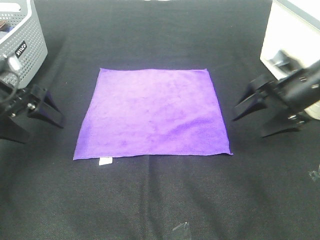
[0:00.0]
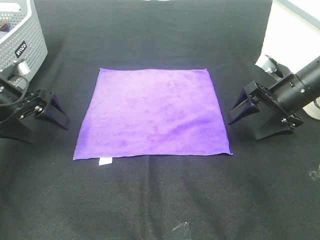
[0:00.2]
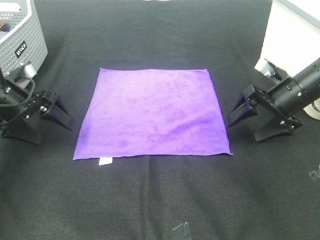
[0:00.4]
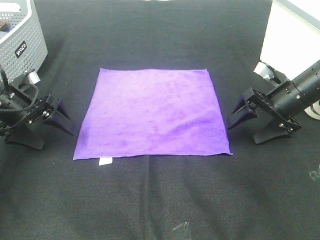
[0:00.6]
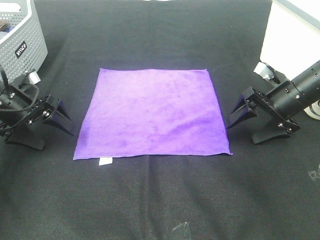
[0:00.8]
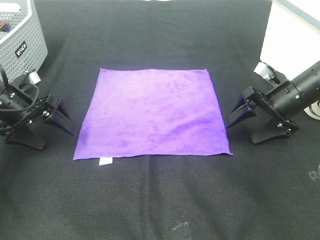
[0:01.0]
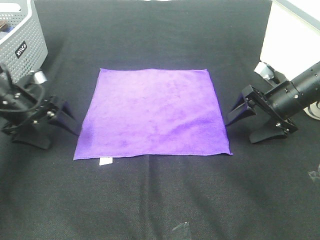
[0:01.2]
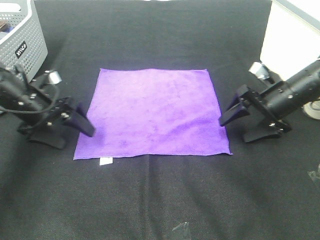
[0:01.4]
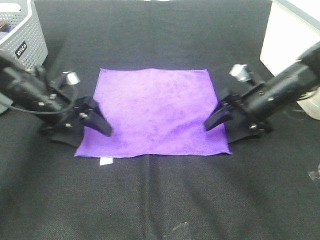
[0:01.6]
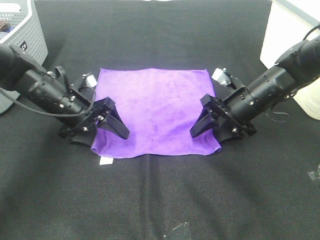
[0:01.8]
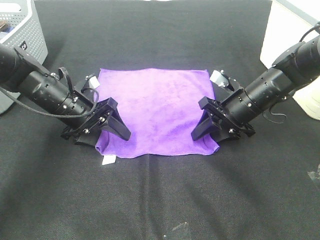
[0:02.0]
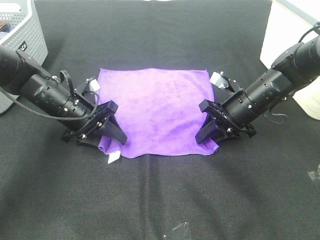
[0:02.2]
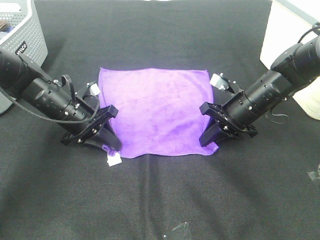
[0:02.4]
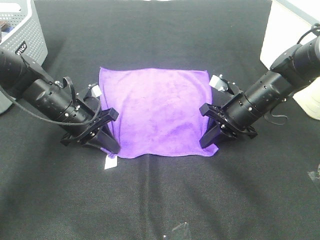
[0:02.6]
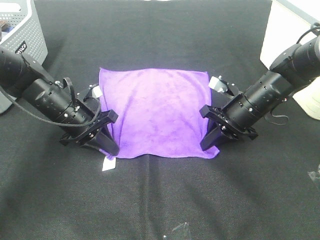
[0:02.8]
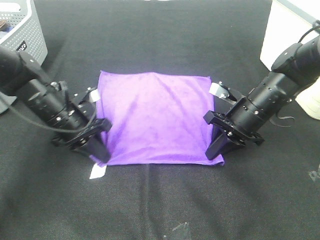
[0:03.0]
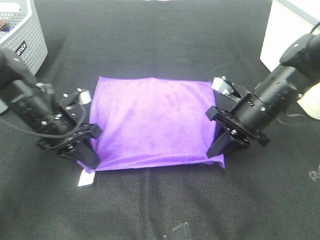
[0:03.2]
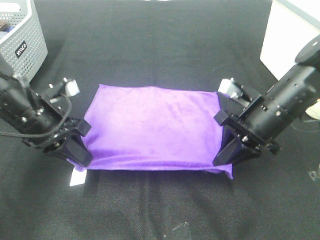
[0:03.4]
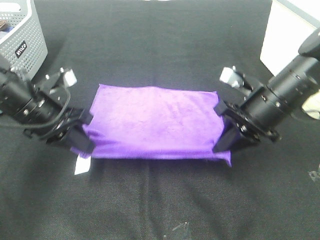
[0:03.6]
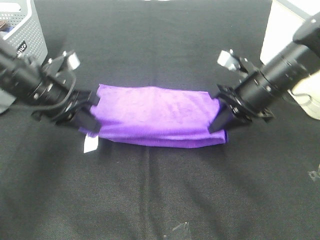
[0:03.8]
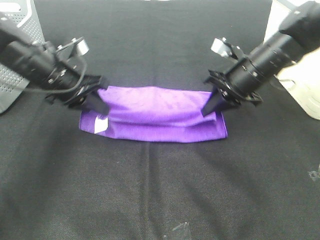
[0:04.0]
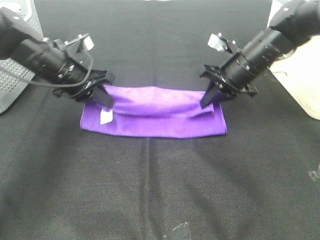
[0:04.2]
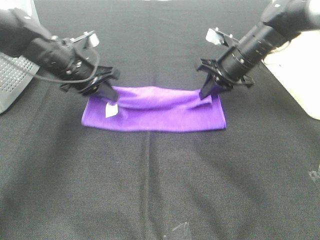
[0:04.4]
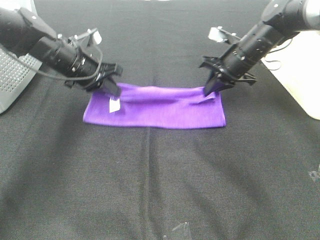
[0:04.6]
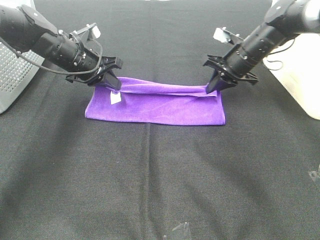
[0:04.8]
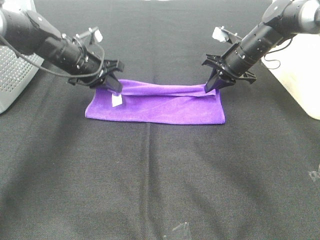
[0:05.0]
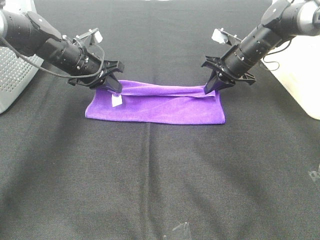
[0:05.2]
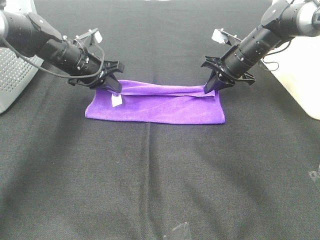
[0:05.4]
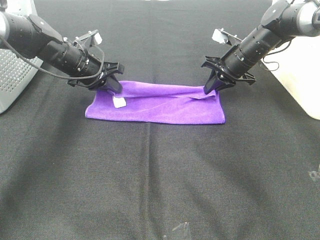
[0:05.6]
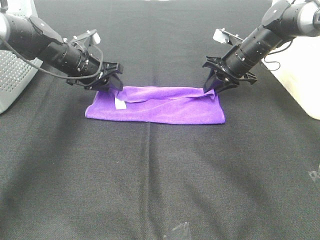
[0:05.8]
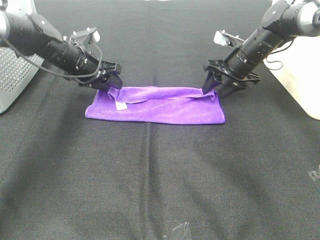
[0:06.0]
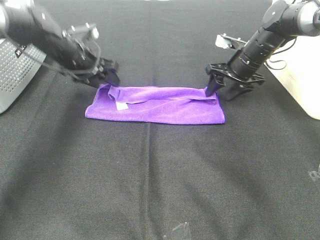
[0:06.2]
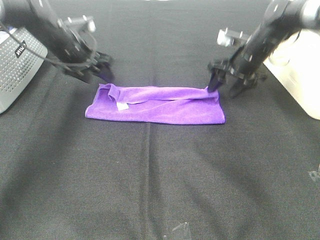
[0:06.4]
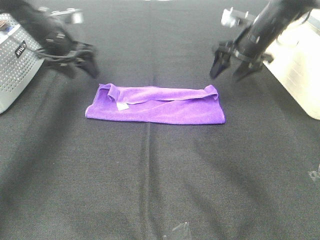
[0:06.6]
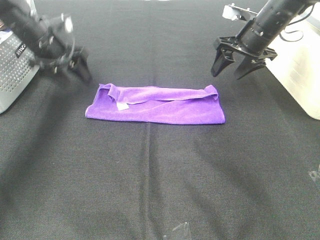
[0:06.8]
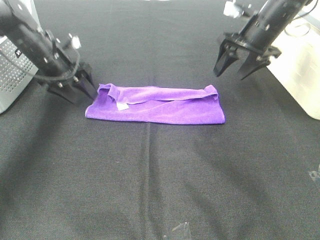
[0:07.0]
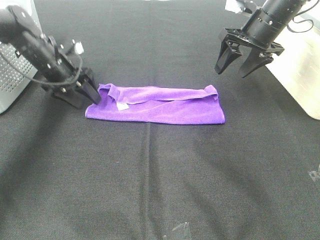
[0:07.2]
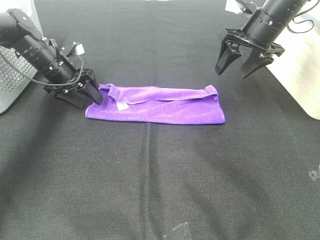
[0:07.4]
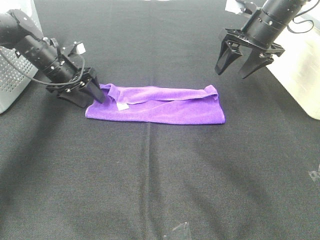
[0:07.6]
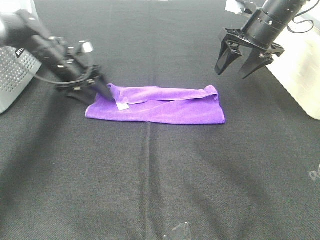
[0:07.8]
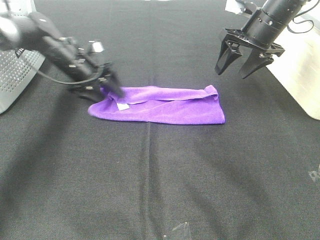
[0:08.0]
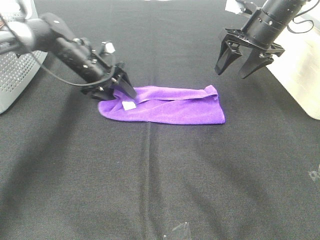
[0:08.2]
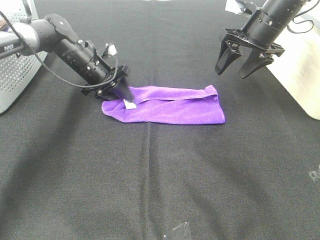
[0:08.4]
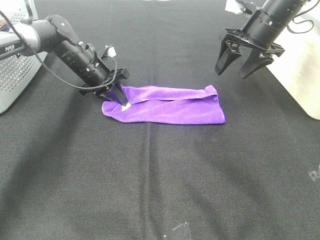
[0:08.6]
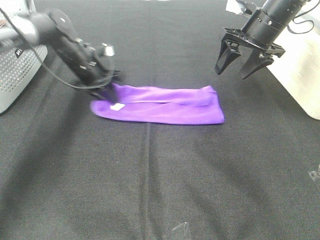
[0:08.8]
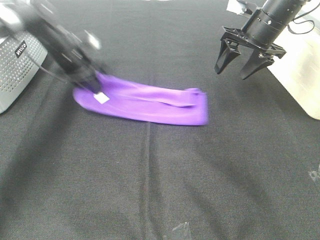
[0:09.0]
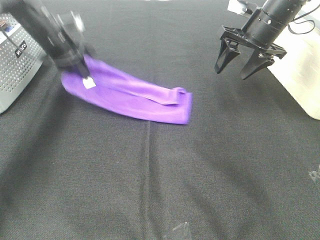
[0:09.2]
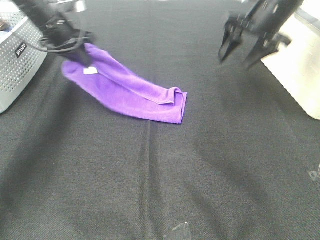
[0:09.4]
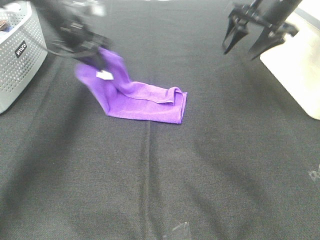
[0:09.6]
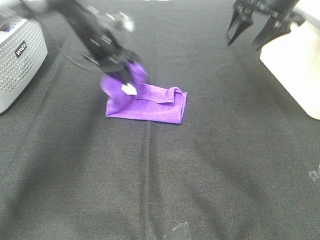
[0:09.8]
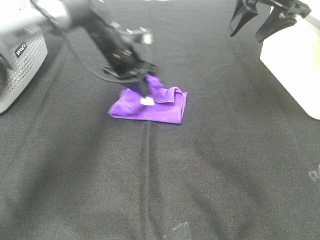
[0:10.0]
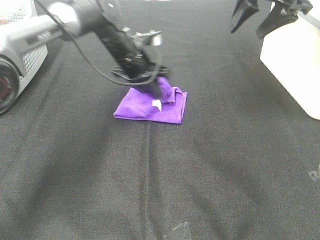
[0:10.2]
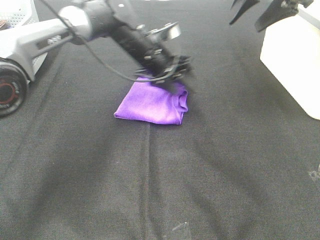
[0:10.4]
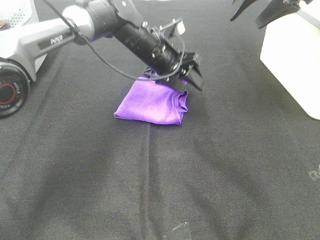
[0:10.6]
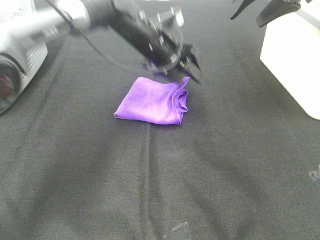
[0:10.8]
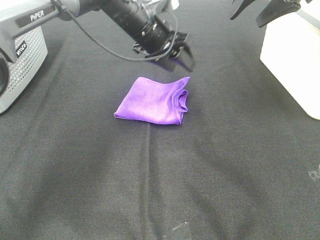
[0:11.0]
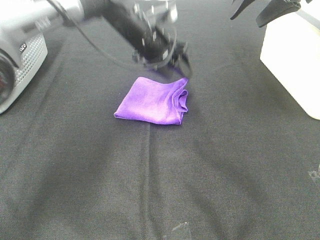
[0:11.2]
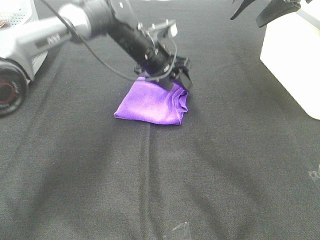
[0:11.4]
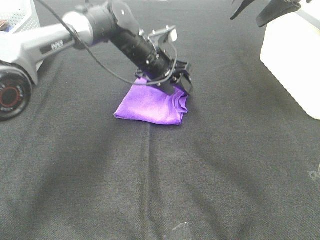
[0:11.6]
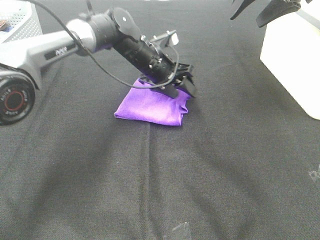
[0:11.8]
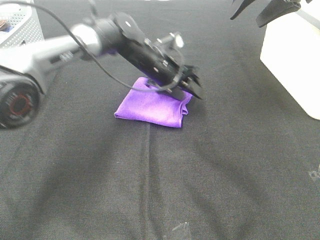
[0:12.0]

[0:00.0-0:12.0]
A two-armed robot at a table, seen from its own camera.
Task of the whole recording: Fold towels.
Step, 0:00.0 to 0:02.6: Left hand: grab the bottom left corner of purple towel.
Step, 0:00.0 to 0:02.6: Right hand: grab the bottom right corner of purple towel.
Step, 0:02.8 to 0:05.4: Left hand: fold the purple towel up.
Step, 0:02.8 to 0:05.4: Right hand: fold the purple towel up.
Step, 0:05.6 to 0:10.2: Left hand: fold the purple towel from left to right.
0:00.0 to 0:01.6: The right gripper shifts some 10 cm downward and to the left; the left gripper moves to the right and downward, roughly 10 cm.
0:01.6 to 0:03.0: The right gripper closes up. Meanwhile the left gripper closes.
0:03.0 to 0:04.4: The right gripper moves forward, about 10 cm. The left gripper is displaced forward and upward by about 10 cm.
0:04.4 to 0:06.0: The left gripper moves approximately 5 cm, and opens. Meanwhile the right gripper moves some 5 cm, and opens up.
0:06.0 to 0:07.6: The right gripper goes roughly 10 cm upward, while the left gripper reaches roughly 5 cm upward, then returns.
0:07.6 to 0:09.0: The left gripper closes.
0:09.0 to 0:10.4: The left gripper is displaced to the right by about 20 cm, and opens up. Meanwhile the right gripper is displaced upward by about 10 cm.
0:10.4 to 0:12.0: The grippers stay close to where they were, moving slightly.

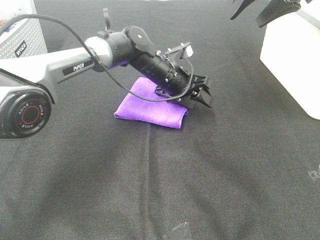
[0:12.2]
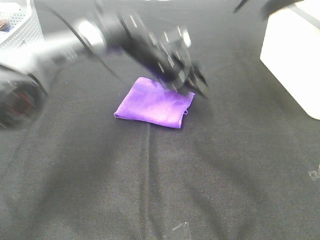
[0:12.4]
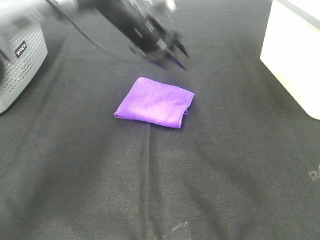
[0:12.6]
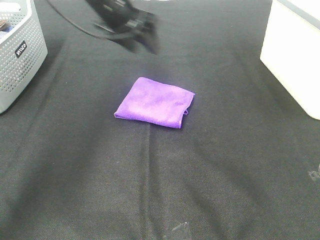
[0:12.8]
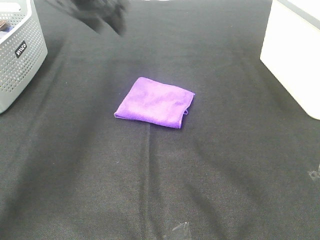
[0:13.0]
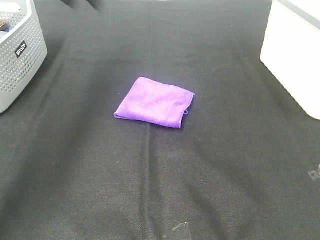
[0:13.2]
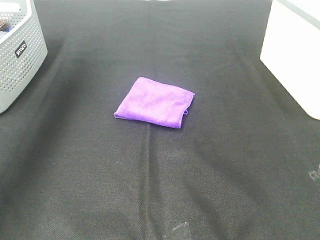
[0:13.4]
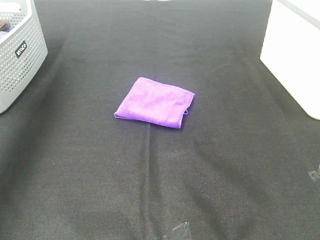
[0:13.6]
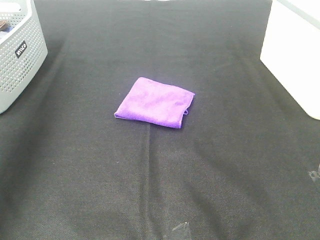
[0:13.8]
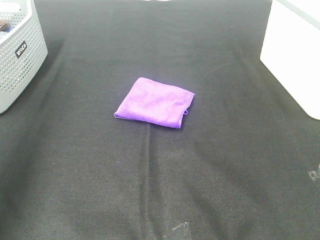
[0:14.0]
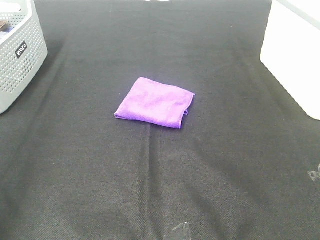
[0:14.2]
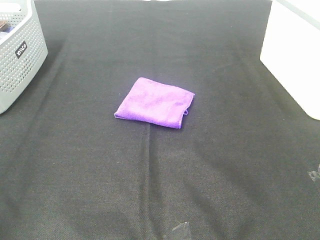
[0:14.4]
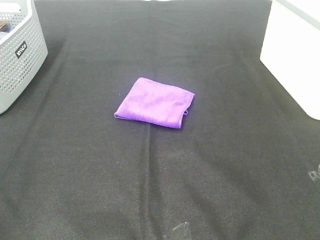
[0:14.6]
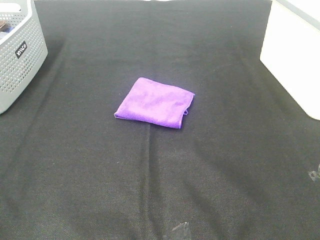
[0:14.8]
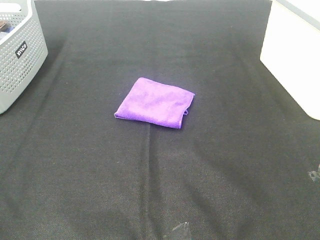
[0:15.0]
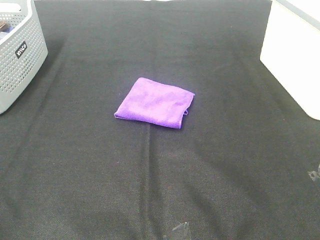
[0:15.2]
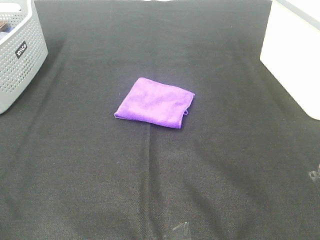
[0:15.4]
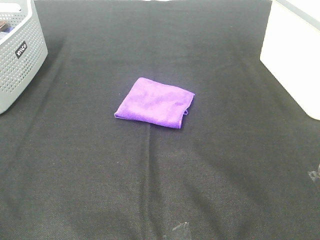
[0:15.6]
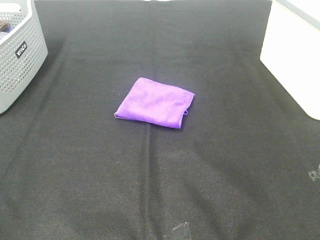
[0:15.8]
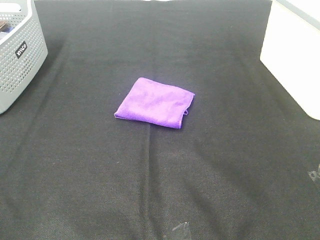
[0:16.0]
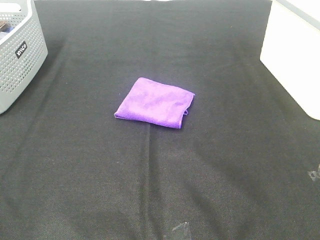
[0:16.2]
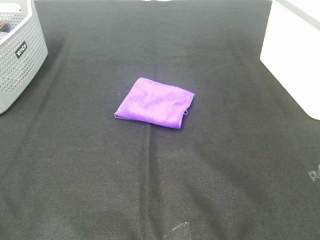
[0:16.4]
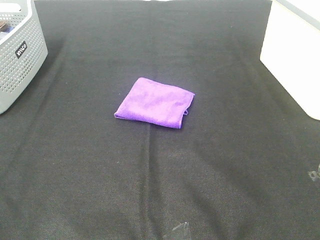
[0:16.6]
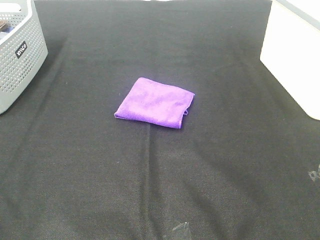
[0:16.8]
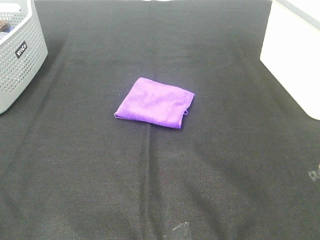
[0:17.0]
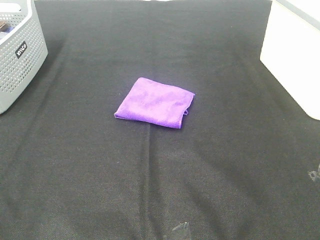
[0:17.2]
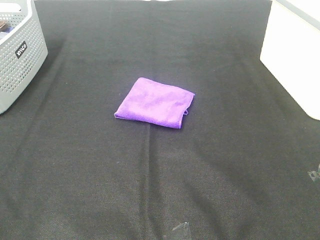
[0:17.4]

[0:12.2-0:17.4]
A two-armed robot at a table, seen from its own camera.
Task of the whole recording: Fold towels.
0:12.2 to 0:14.0: The right gripper is displaced backward by approximately 35 cm, while the left gripper shifts about 50 cm to the left, backward and upward.
0:14.0 to 0:15.6: The left gripper heads backward and downward, covering some 20 cm.
0:15.6 to 0:17.4: Neither gripper changes place.

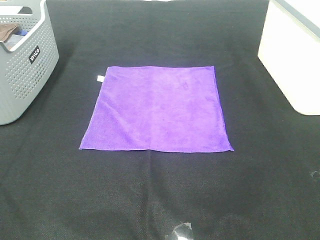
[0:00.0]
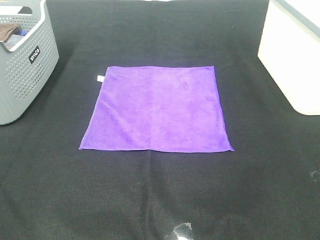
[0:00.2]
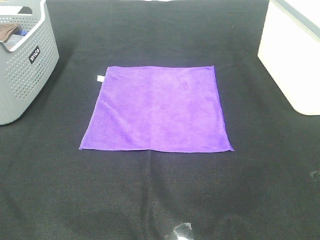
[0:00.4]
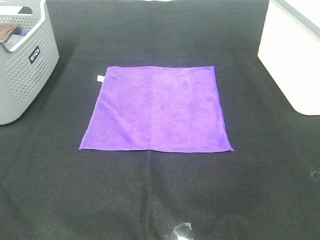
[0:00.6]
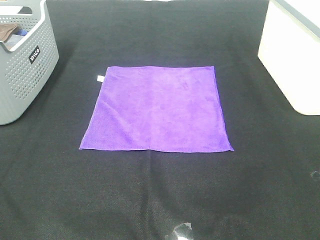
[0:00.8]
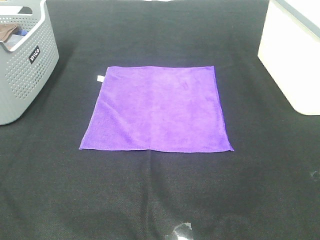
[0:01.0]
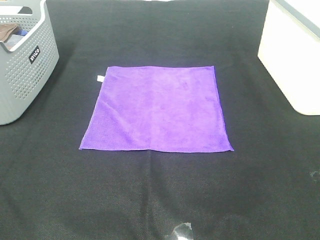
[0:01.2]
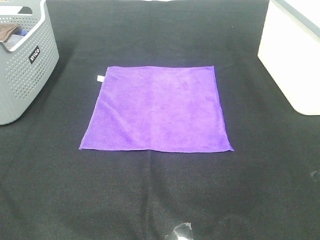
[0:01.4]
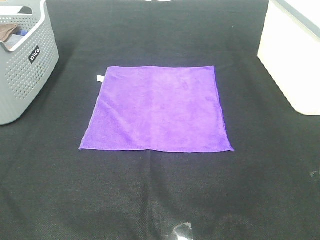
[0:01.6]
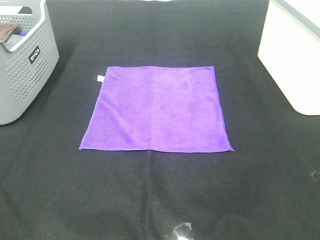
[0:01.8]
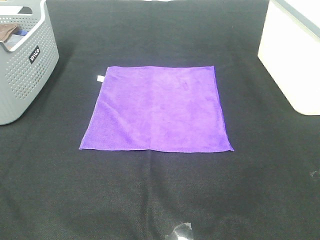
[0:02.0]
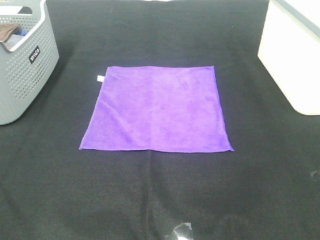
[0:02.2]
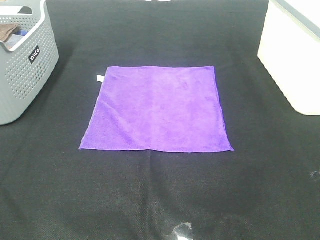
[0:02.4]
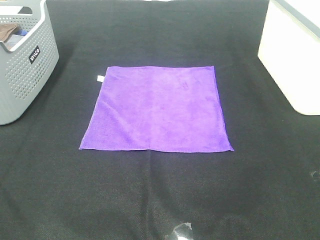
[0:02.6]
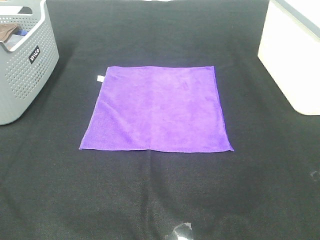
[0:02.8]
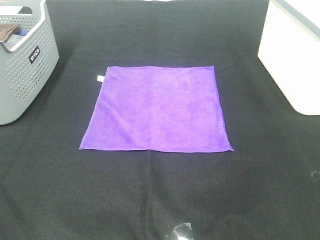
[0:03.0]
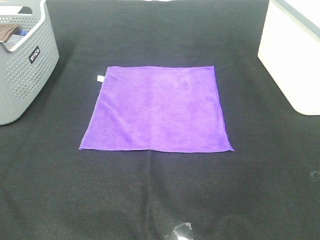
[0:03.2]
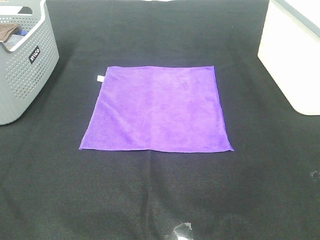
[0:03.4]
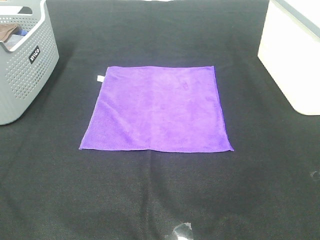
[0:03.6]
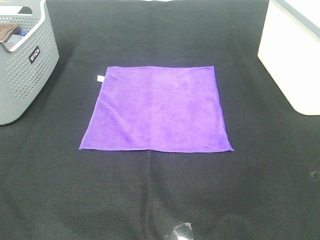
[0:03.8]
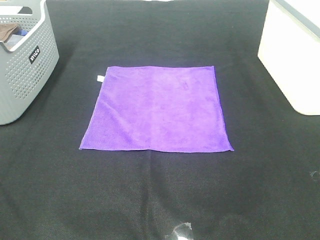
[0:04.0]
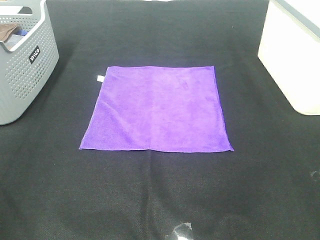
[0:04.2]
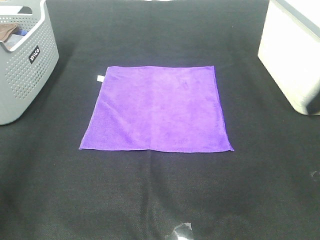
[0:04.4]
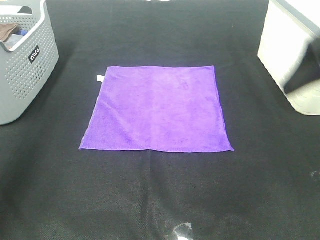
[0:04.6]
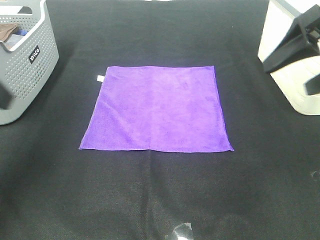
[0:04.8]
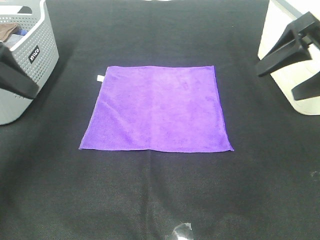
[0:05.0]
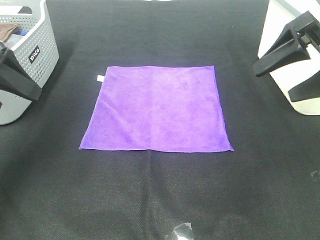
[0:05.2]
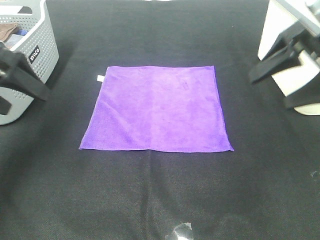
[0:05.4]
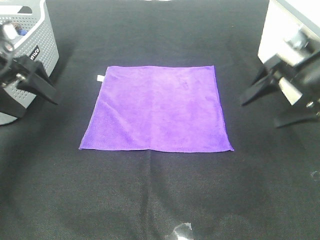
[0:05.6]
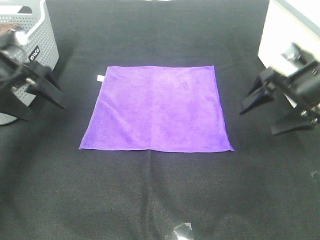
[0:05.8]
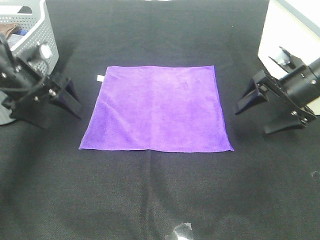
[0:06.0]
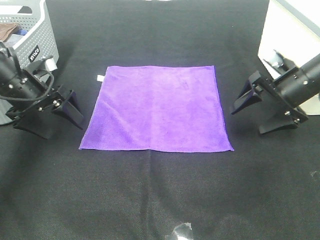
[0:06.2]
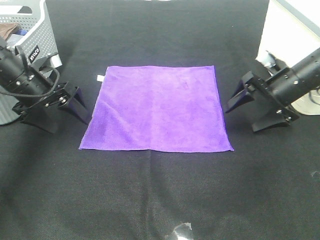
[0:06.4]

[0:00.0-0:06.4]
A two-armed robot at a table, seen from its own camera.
Task of the whole recording: Fold towels.
0:00.0 to 0:03.2: Both grippers stay put.
0:03.2 to 0:04.8: Both grippers travel together forward, about 25 cm.
0:04.8 to 0:06.4: Both grippers travel together downward and forward, about 20 cm.
